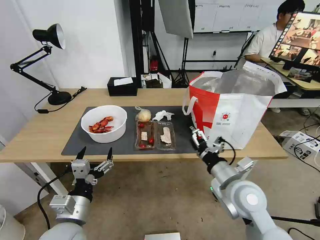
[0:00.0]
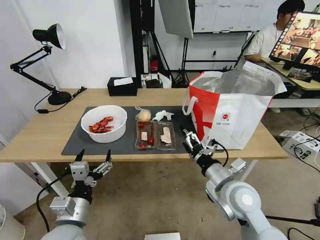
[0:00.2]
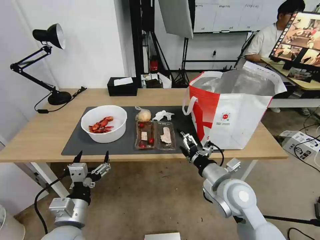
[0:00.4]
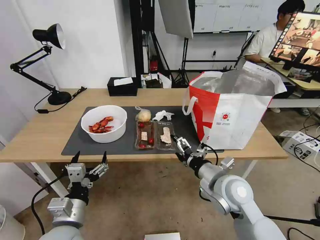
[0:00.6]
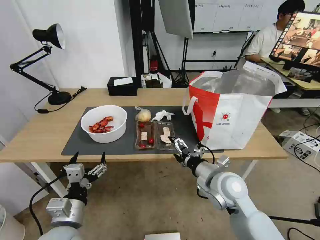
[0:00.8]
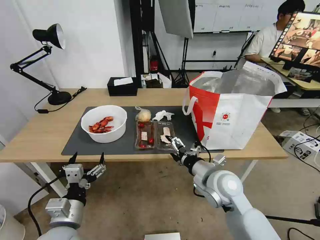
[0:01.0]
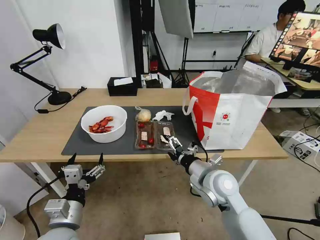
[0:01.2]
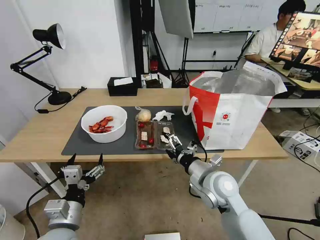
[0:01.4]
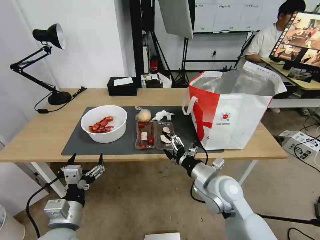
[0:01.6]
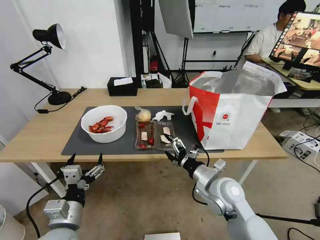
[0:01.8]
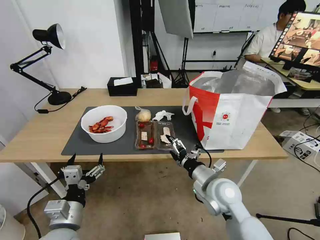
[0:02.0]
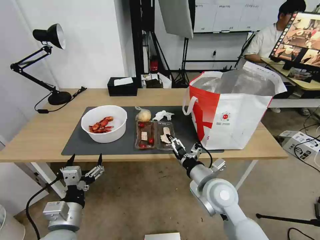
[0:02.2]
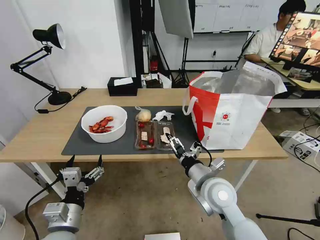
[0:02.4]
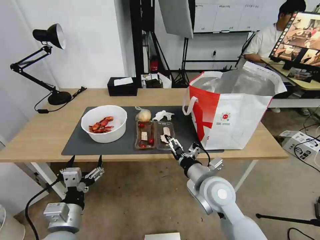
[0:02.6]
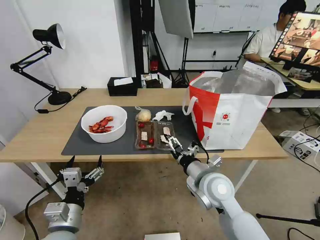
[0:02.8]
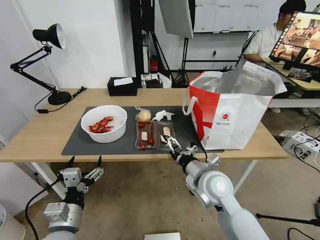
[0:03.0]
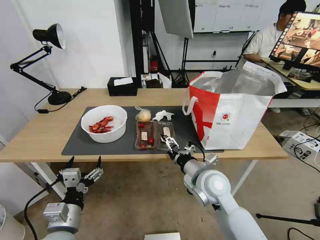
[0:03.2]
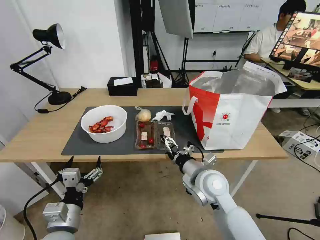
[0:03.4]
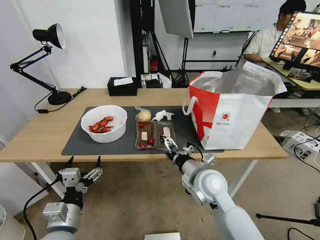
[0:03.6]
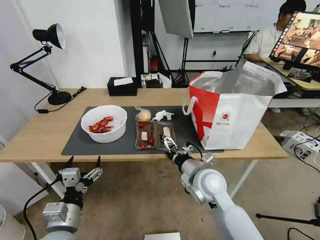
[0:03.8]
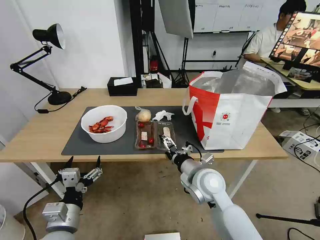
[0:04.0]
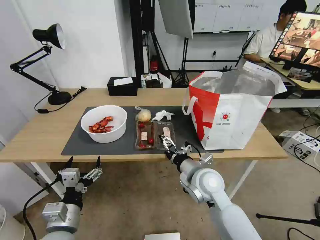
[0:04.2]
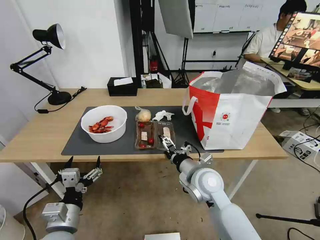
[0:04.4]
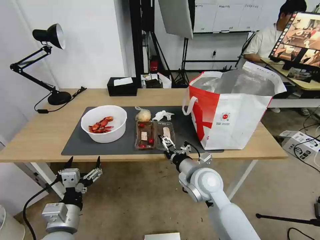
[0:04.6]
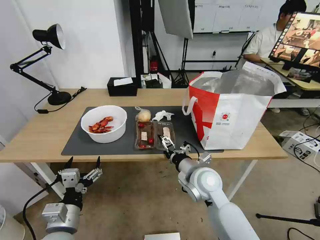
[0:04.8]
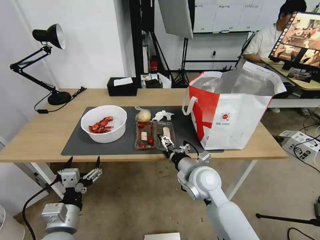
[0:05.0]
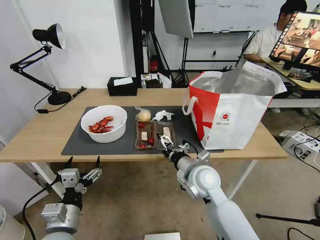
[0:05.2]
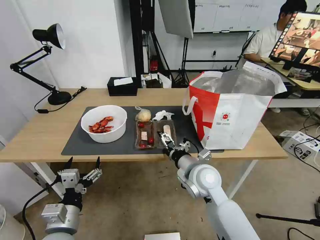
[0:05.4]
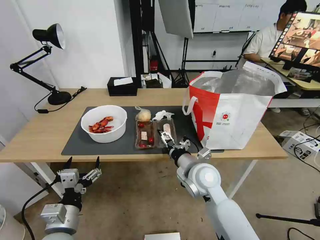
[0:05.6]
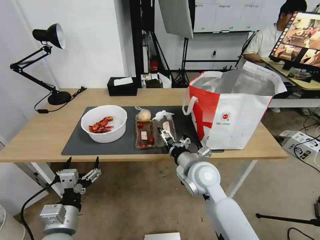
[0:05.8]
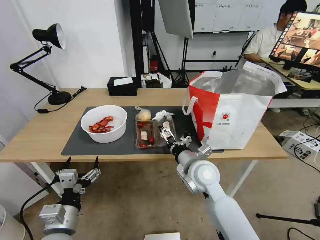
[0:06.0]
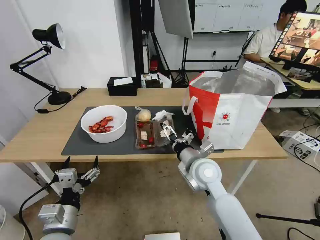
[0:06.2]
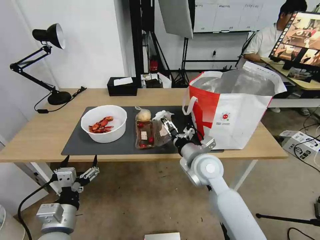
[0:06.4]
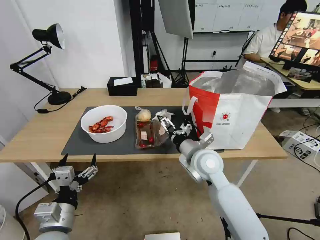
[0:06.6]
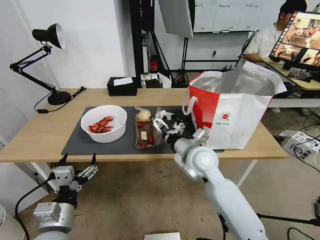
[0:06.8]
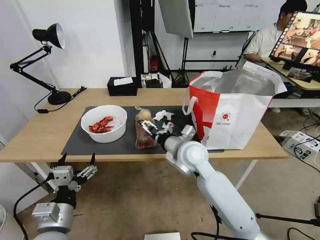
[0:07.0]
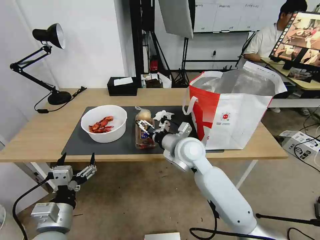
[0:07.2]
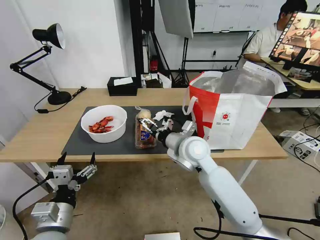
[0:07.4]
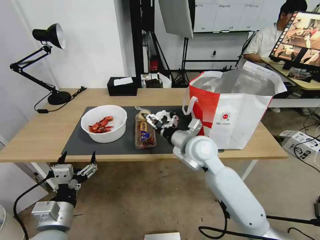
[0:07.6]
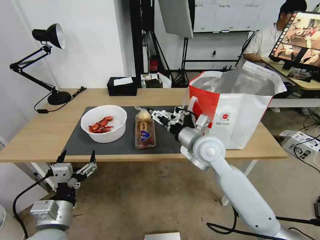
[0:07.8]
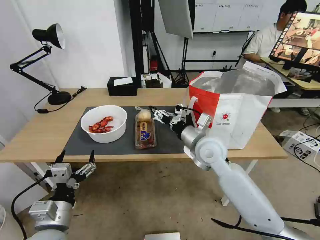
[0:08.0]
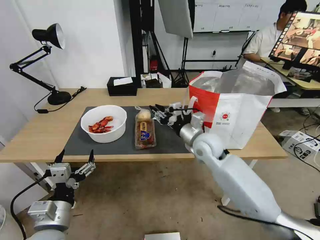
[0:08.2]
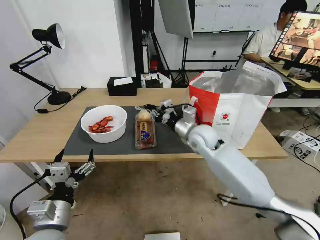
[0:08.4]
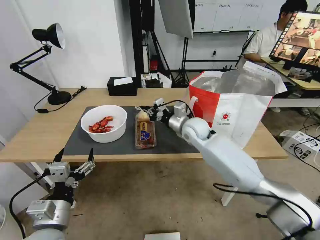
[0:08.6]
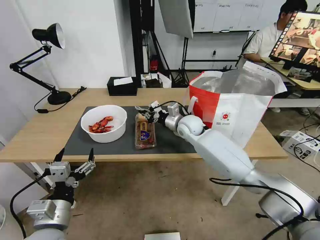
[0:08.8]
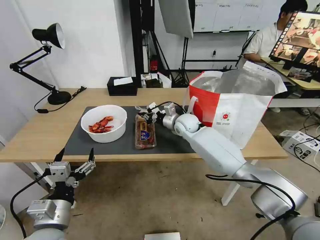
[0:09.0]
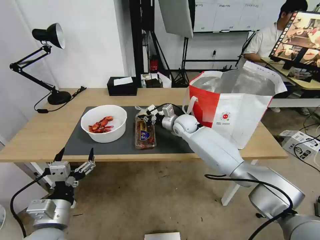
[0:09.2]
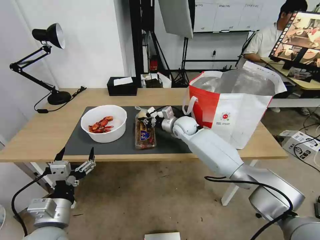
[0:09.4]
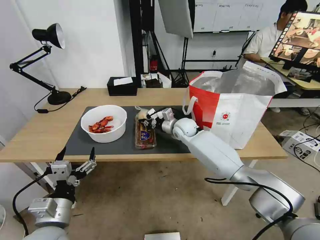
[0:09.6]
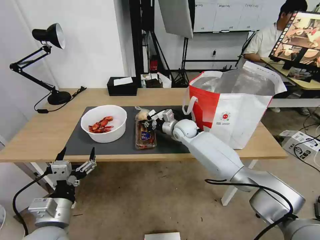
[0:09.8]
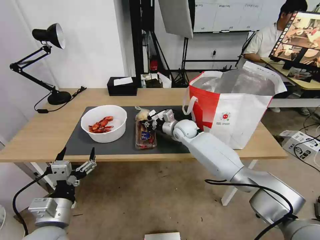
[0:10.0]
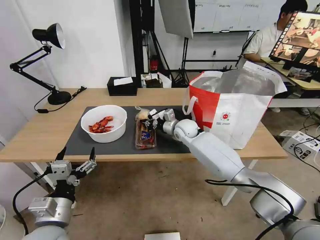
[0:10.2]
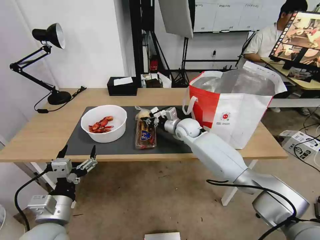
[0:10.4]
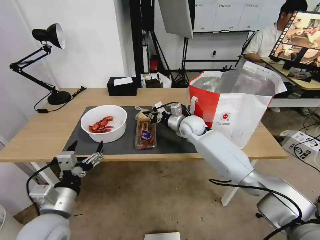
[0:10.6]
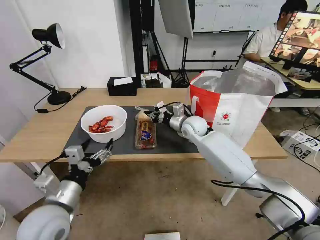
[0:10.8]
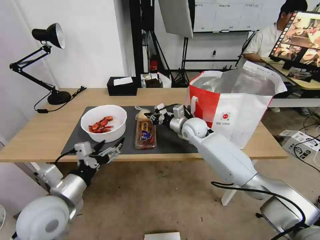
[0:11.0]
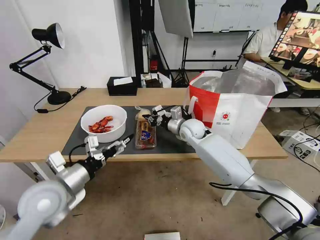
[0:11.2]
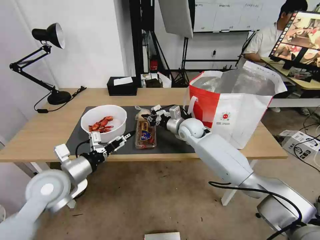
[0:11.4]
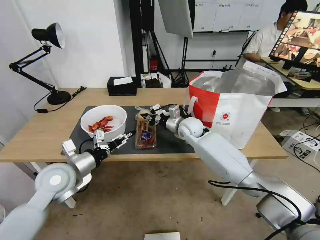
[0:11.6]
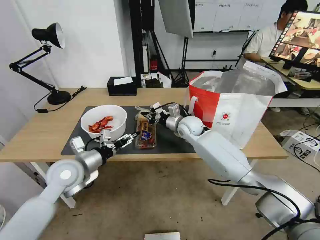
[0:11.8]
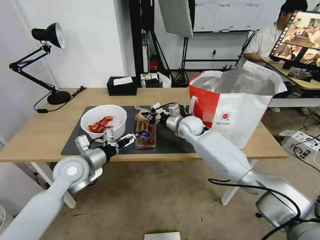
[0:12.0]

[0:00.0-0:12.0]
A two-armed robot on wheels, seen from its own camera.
Task of the whole recording: Pick up the trash from the table and place it into the takeout bag.
0:00.0 to 0:01.6: The right gripper changes place by some 5 cm.
0:01.6 to 0:04.4: There are only small adjustments of the grippers.
0:04.4 to 0:06.0: The grippers make only small movements.
0:06.0 to 0:07.6: The right gripper travels upward and forward by about 10 cm.
0:07.6 to 0:09.0: The right gripper moves forward, roughly 15 cm, and closes its fingers.
0:09.0 to 0:10.4: The grippers move only a little.
0:10.4 to 0:12.0: The left gripper shifts about 15 cm forward.

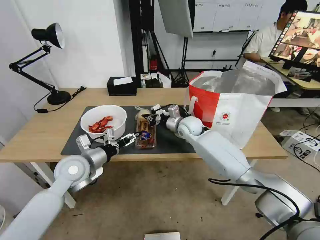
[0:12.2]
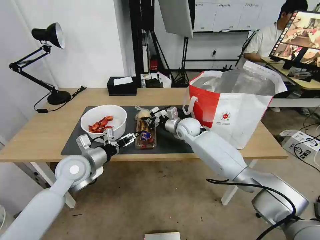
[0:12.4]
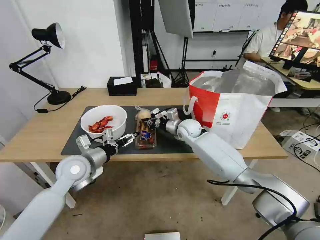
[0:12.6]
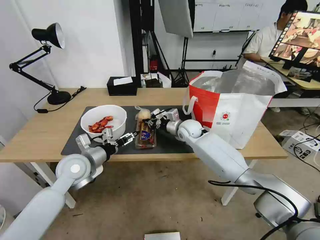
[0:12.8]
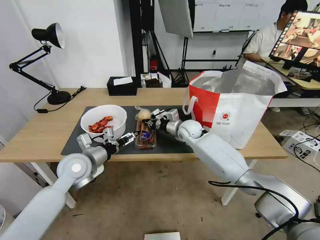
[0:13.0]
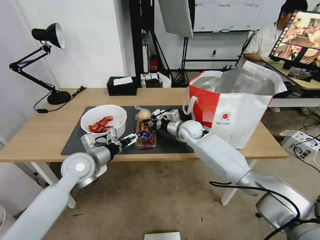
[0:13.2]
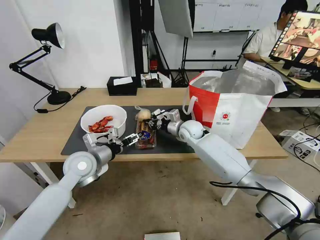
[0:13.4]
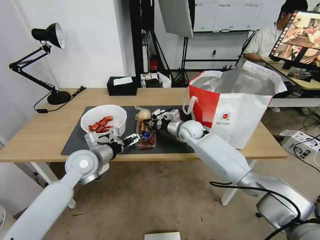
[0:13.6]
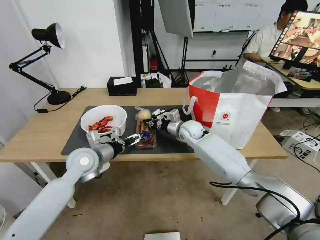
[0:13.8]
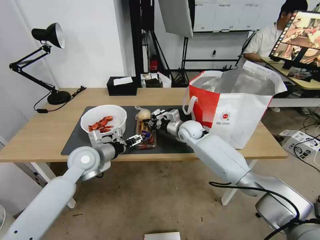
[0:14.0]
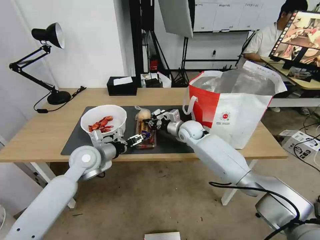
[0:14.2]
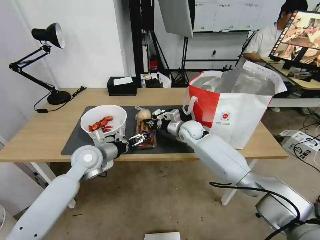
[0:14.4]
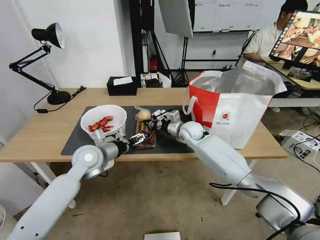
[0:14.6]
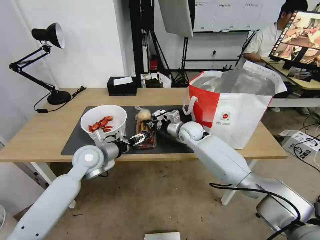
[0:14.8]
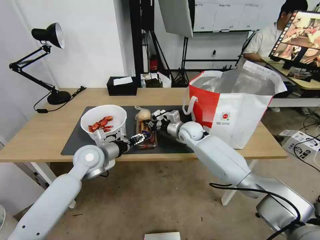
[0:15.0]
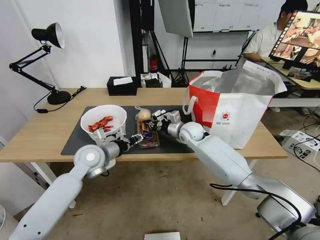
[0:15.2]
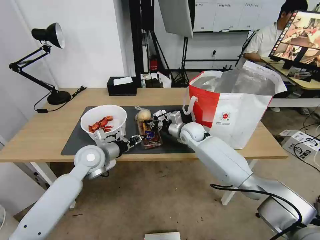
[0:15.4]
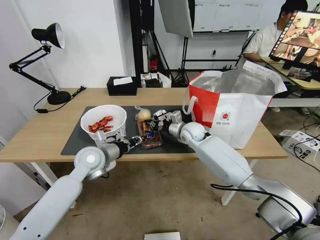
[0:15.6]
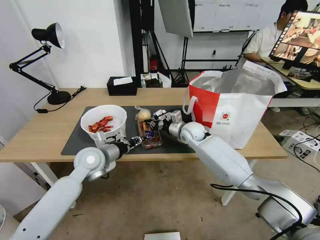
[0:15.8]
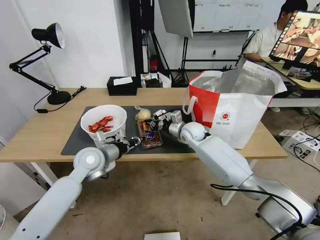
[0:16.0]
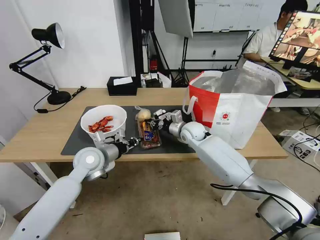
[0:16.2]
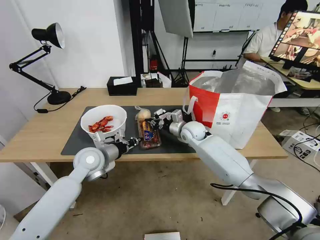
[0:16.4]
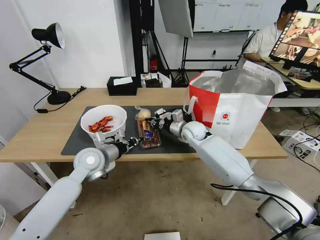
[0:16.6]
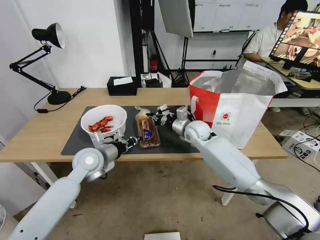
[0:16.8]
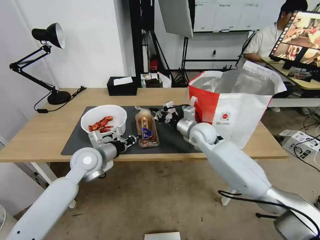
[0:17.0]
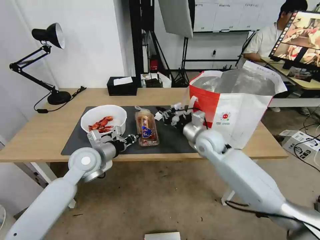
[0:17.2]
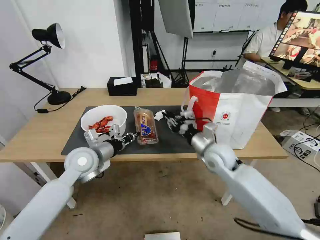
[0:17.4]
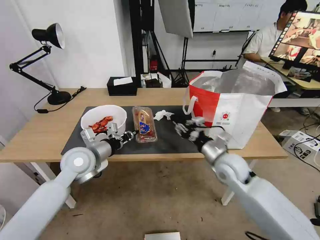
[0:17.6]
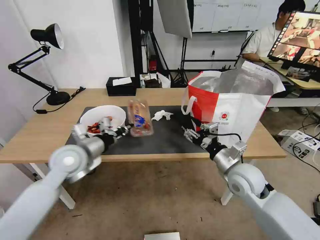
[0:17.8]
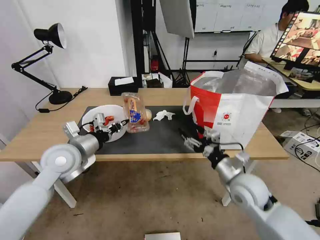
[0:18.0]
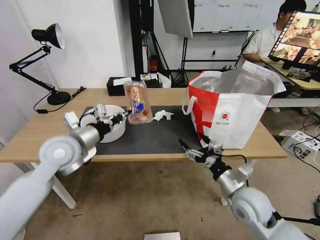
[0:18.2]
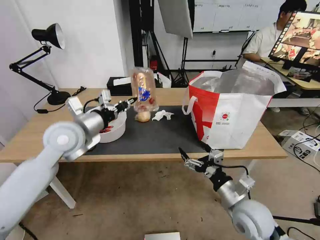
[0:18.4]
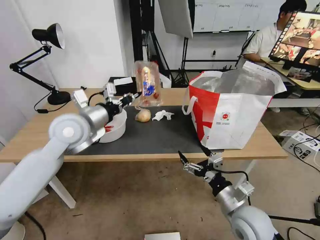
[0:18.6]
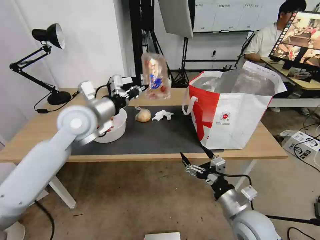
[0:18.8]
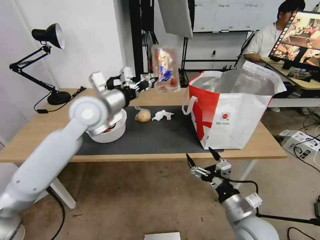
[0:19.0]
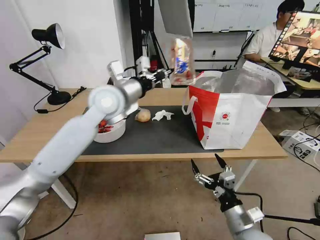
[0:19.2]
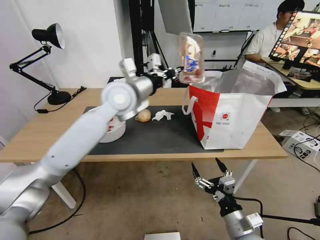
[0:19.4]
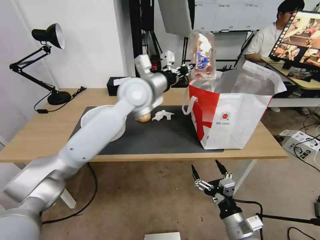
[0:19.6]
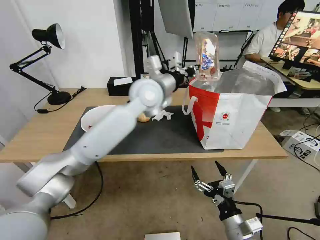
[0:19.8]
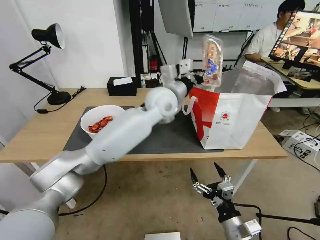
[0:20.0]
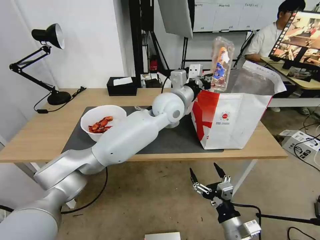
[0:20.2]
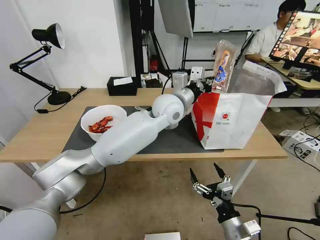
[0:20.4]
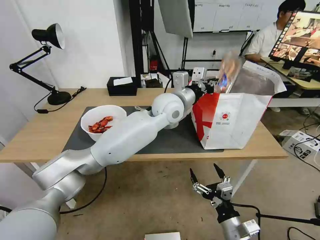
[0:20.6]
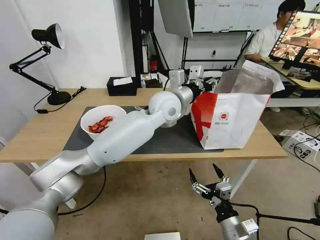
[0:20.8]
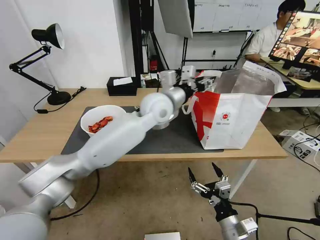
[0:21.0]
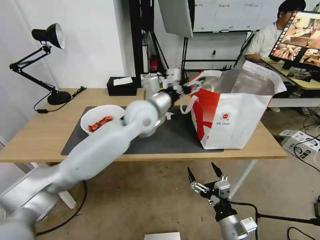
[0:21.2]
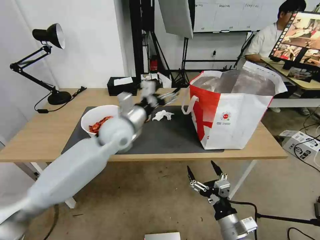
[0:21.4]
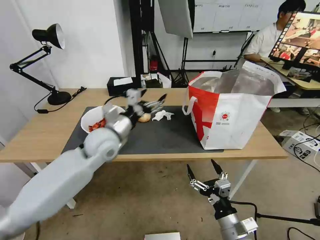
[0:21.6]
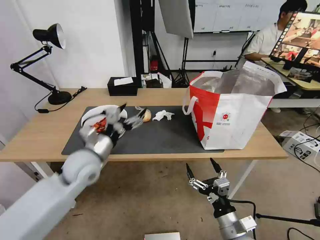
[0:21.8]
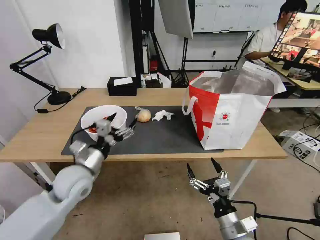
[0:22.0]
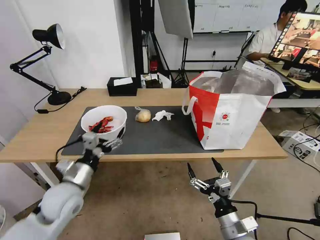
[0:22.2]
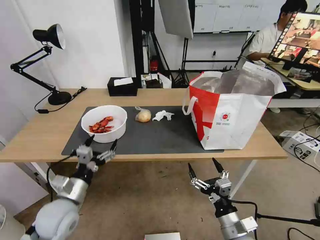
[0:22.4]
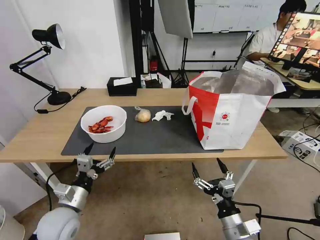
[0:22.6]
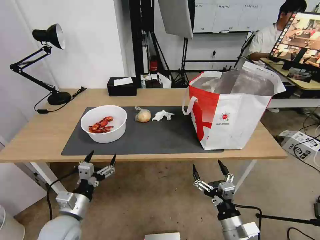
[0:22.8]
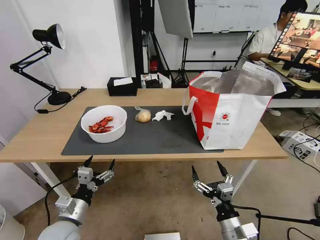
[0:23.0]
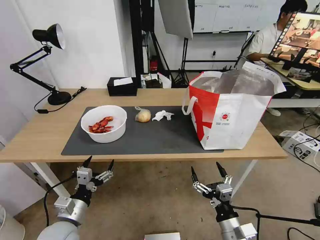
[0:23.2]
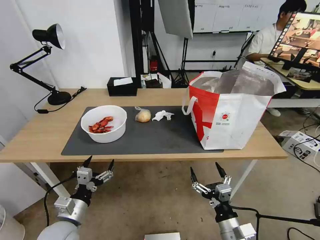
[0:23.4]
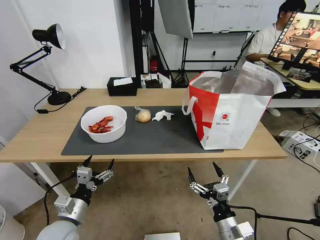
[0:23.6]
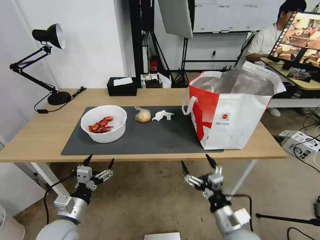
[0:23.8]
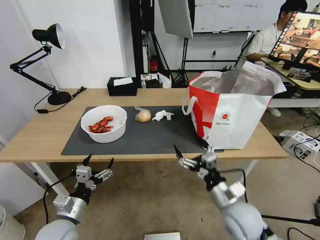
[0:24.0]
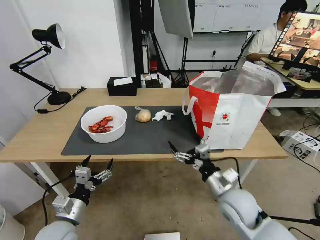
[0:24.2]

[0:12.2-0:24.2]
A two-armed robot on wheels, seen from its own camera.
Task of the whole recording: Pick up the trash from the table and place it into the takeout bag.
0:12.2 to 0:13.8: The grippers make only small movements.
0:13.8 to 0:15.2: The left gripper closes up.
0:15.2 to 0:16.6: The left gripper closes.
0:16.6 to 0:18.2: The left gripper goes some 10 cm upward. Meanwhile the right gripper travels backward and to the right by roughly 30 cm, and opens.
0:18.2 to 0:19.8: The left gripper moves to the right and forward, roughly 25 cm. Meanwhile the right gripper moves backward and downward, approximately 15 cm.
0:19.8 to 0:21.2: The left gripper moves approximately 5 cm to the right and comes back, and opens up.
0:21.2 to 0:22.6: The left gripper heads backward, to the left and downward, covering about 40 cm.
0:22.6 to 0:24.2: The right gripper moves forward and upward, roughly 15 cm.
